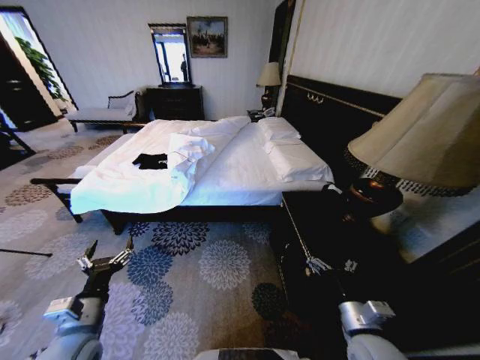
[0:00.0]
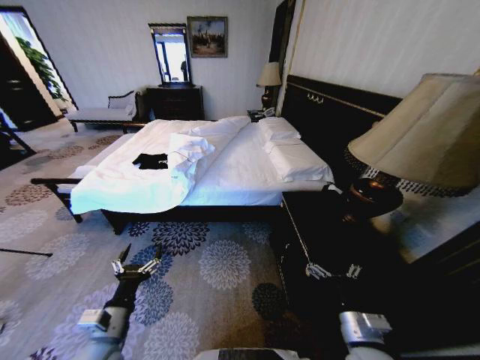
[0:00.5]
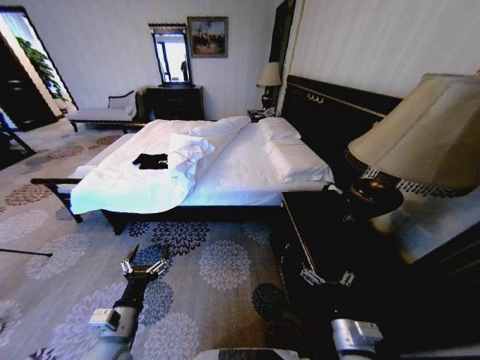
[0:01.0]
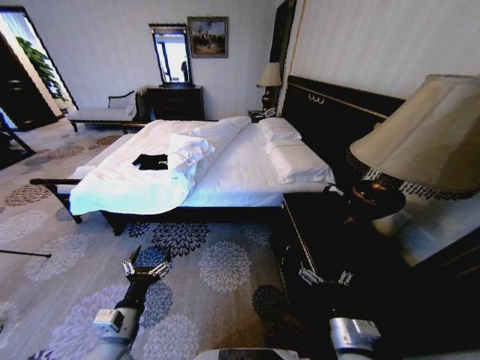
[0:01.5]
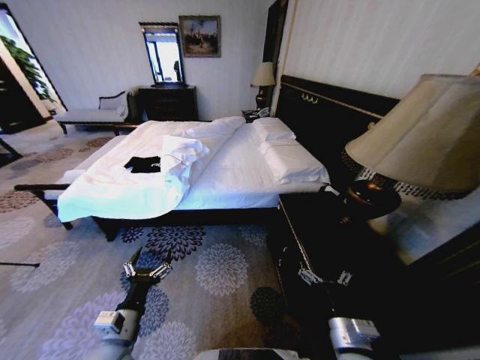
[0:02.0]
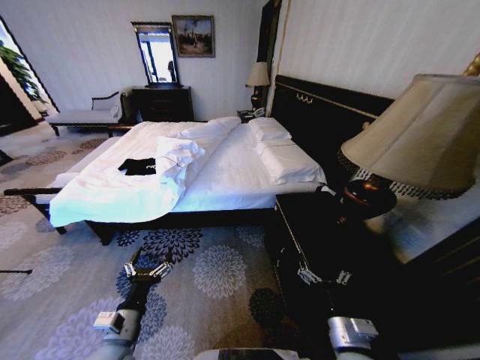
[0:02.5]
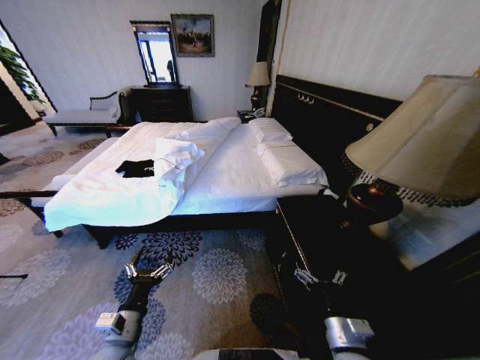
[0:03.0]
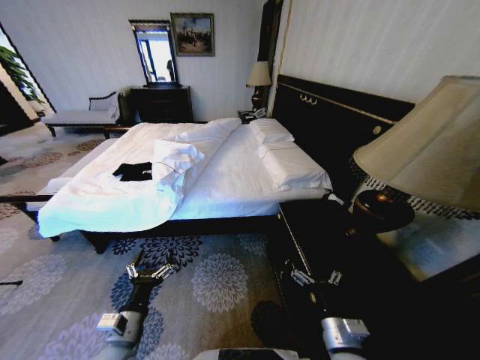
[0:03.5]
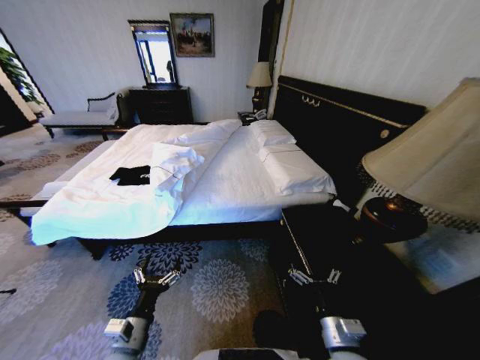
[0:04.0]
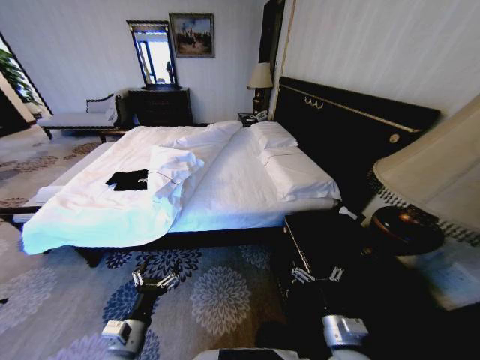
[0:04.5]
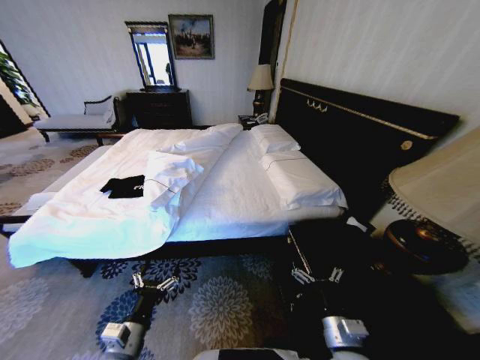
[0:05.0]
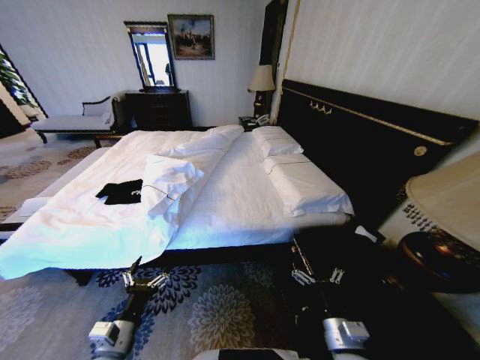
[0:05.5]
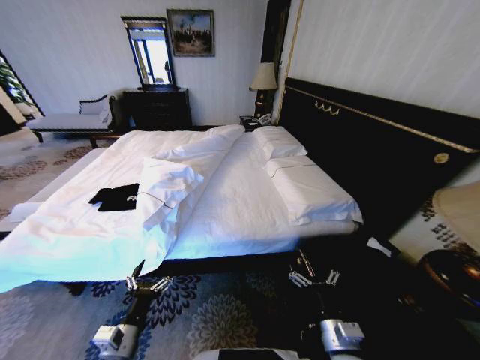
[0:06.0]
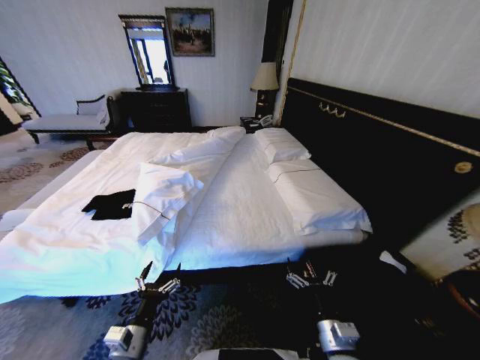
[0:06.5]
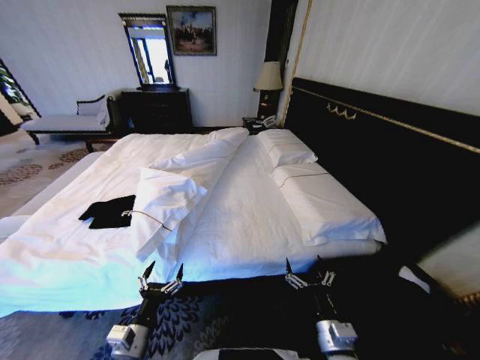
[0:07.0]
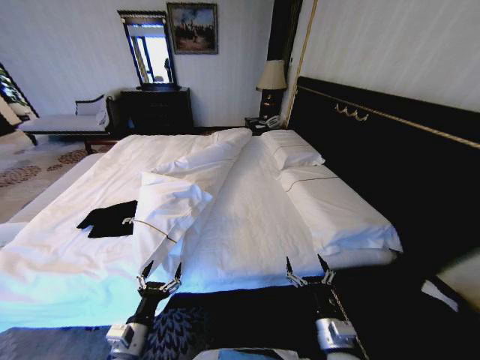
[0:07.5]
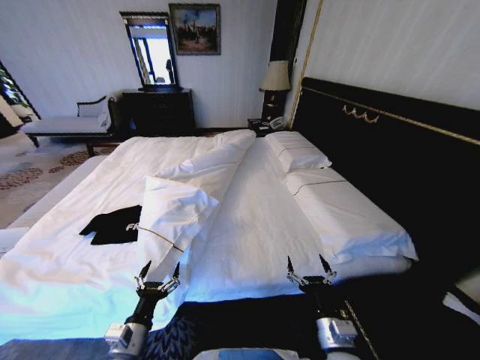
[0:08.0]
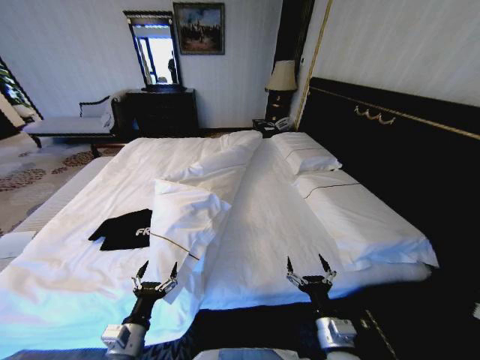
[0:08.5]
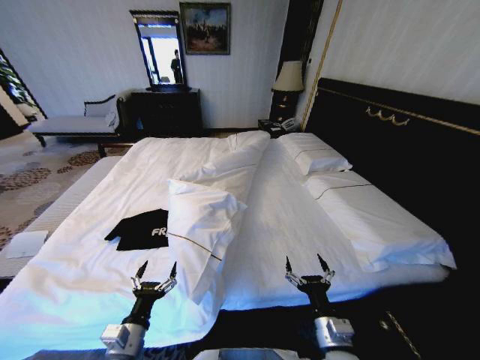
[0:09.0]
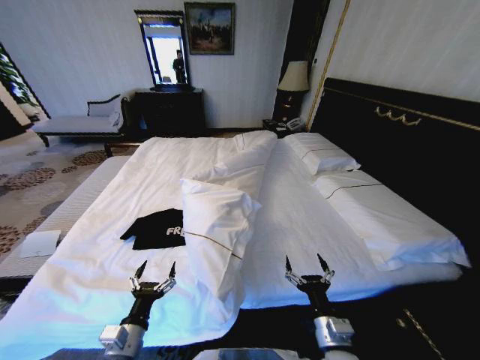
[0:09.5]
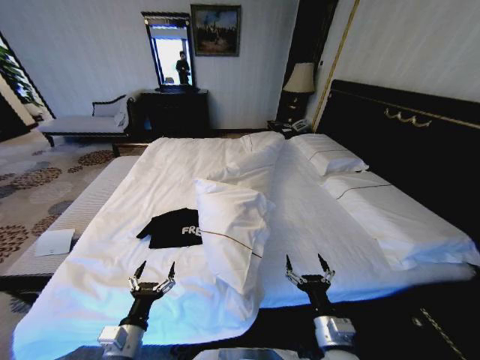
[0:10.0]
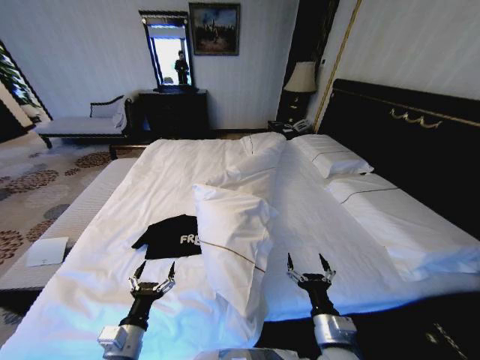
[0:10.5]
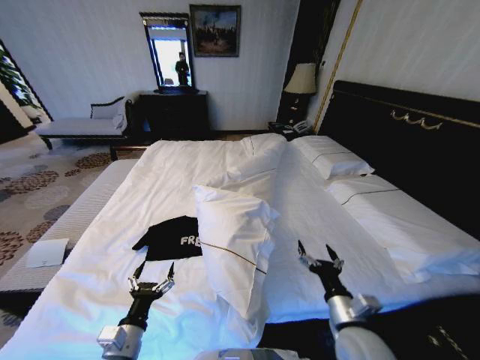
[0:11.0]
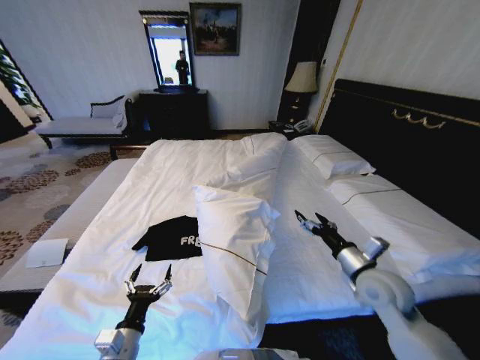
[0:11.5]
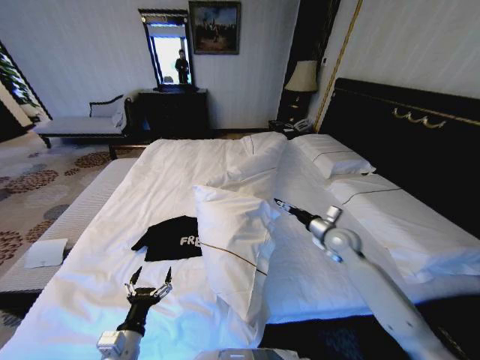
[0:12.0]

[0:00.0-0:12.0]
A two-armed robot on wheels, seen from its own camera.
Task of the whole recording: Fold the clothes on the bed.
0:10.0 to 0:12.0: The right gripper goes about 30 cm forward and to the right.

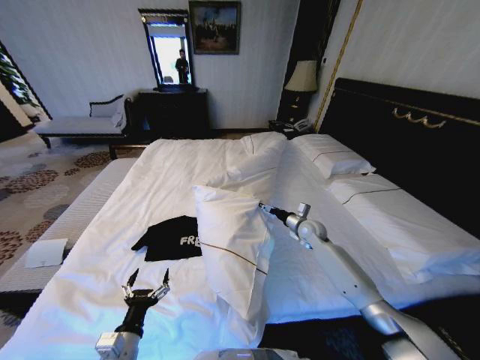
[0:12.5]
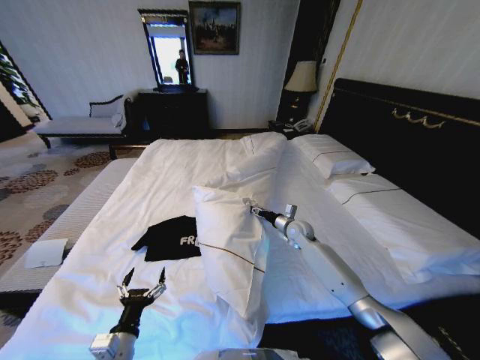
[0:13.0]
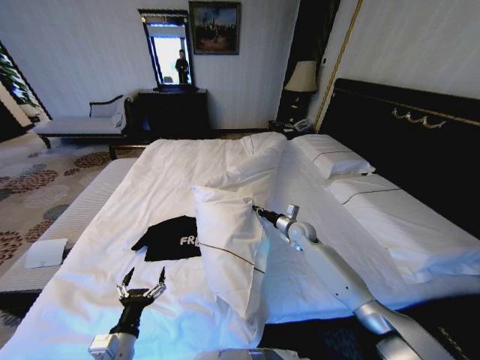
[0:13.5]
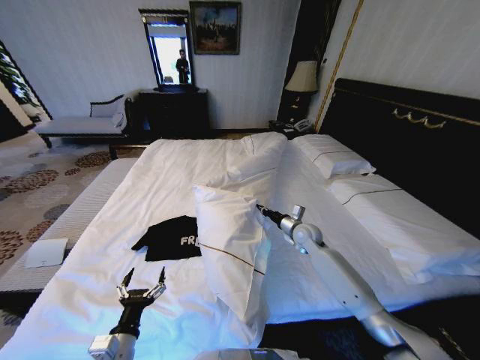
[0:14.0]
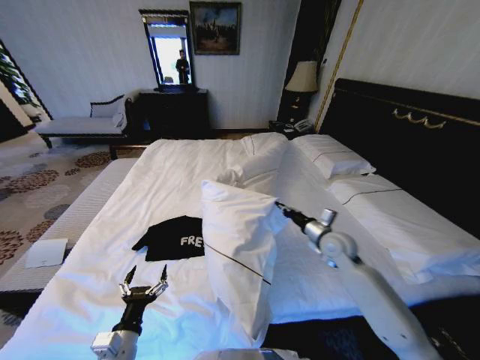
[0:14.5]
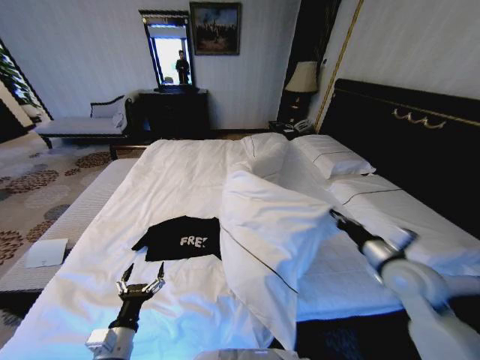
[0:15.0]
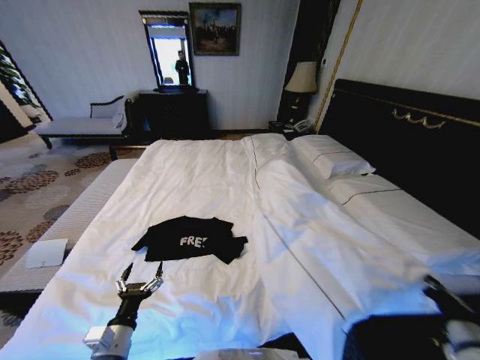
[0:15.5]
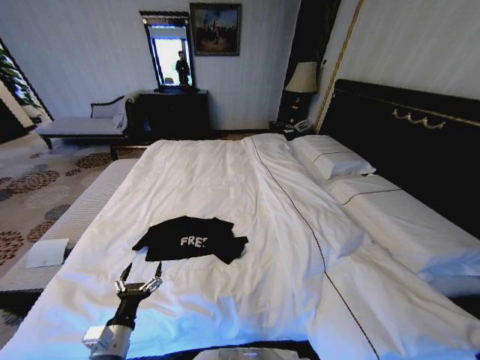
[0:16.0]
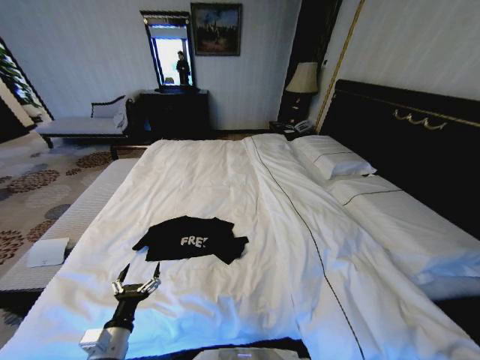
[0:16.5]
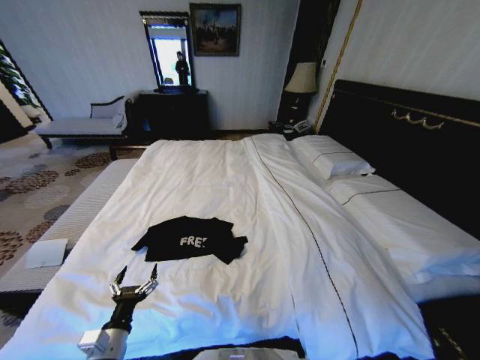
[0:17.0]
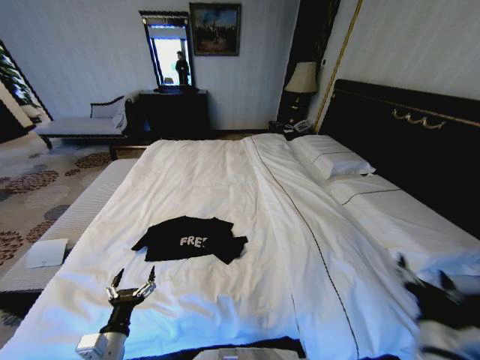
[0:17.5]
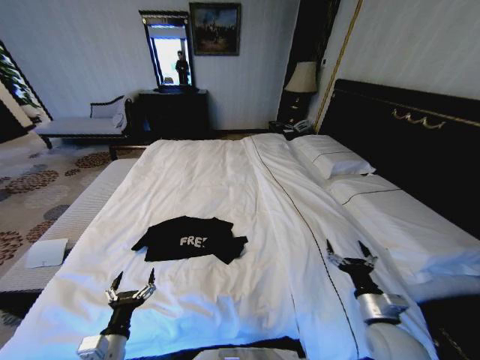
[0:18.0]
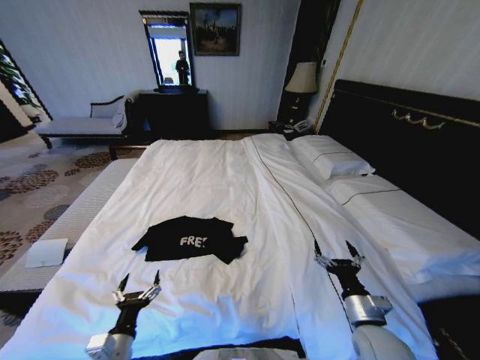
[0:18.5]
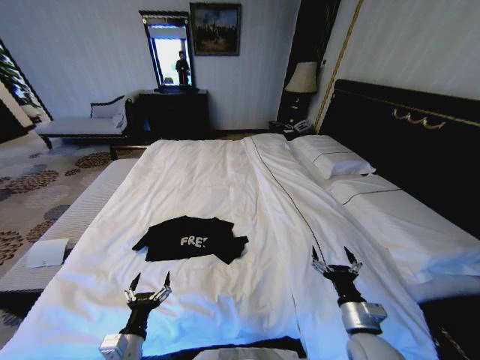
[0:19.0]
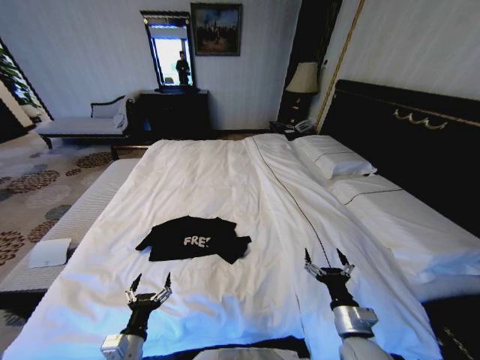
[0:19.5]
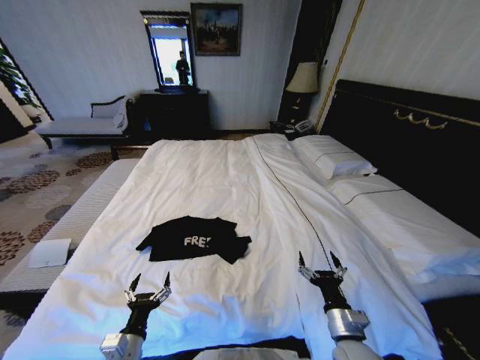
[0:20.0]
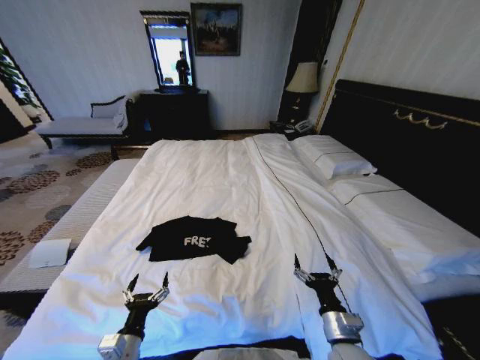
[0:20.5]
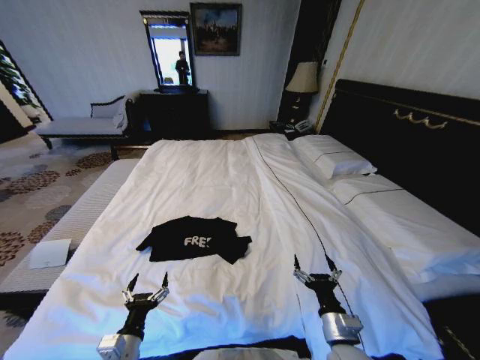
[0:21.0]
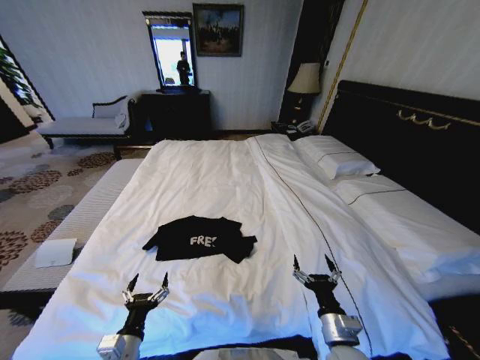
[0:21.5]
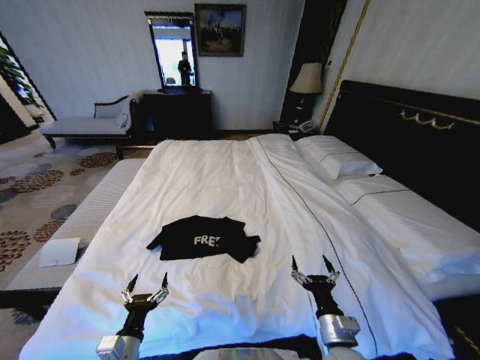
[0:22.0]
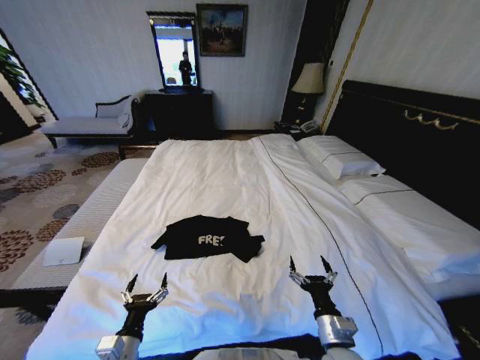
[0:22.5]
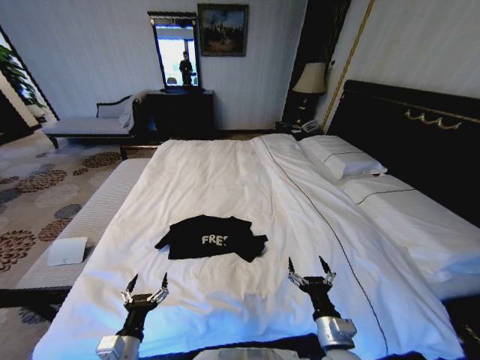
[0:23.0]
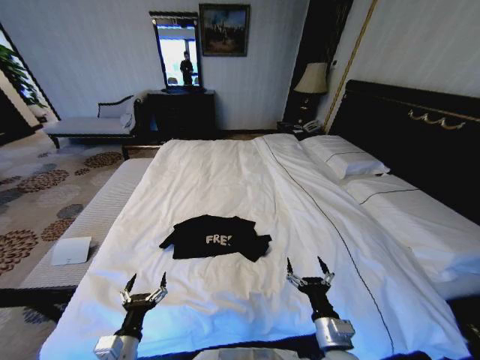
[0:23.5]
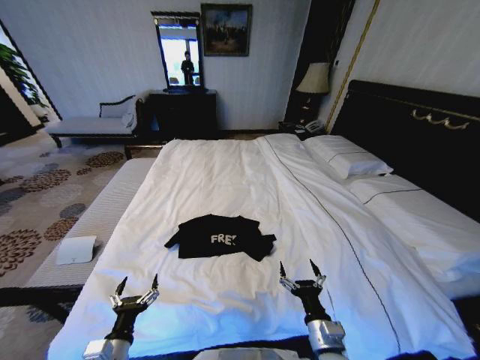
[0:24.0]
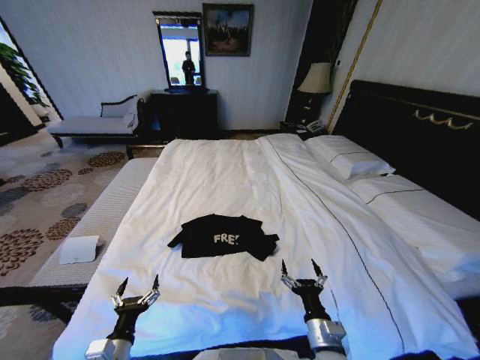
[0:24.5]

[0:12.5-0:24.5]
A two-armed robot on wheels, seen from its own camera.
Task of the whole recording: Fold the clothes on the bed.
0:12.5 to 0:14.5: The right gripper goes approximately 10 cm backward and upward, and closes up.
0:14.5 to 0:16.5: The right gripper shifts approximately 35 cm backward.
0:16.5 to 0:18.5: The right gripper is displaced forward, to the left and upward by some 20 cm, and opens up.
0:18.5 to 0:20.5: The right gripper travels to the left by roughly 5 cm.

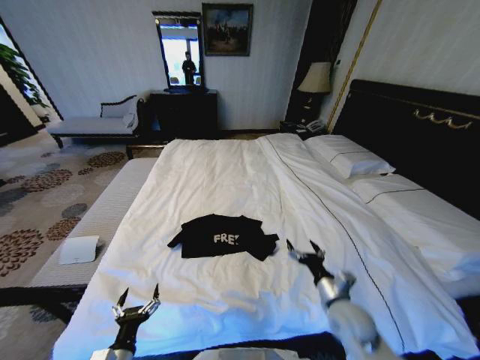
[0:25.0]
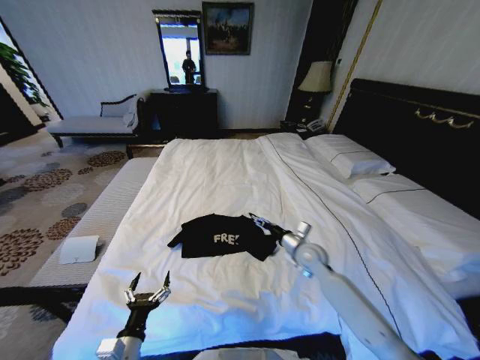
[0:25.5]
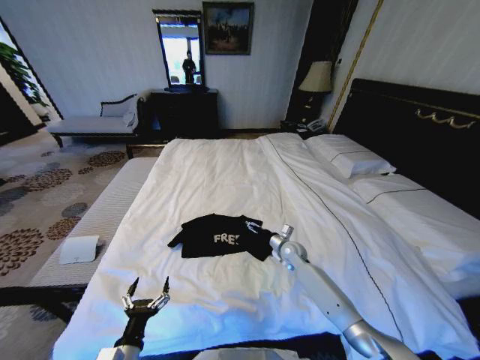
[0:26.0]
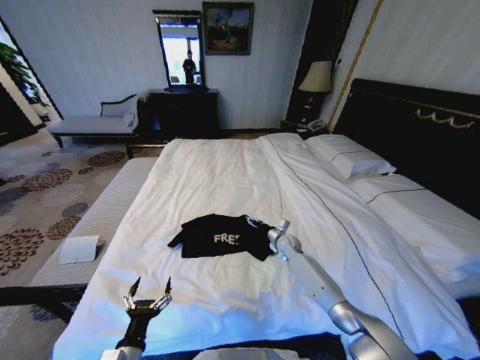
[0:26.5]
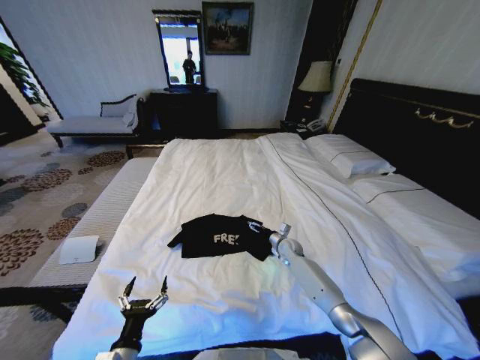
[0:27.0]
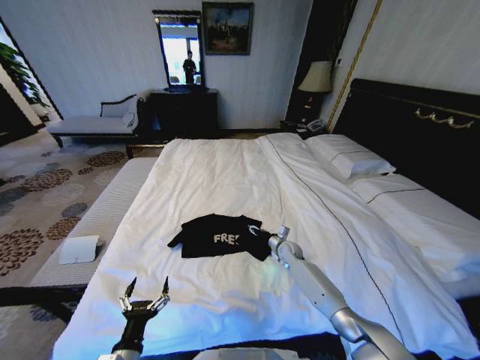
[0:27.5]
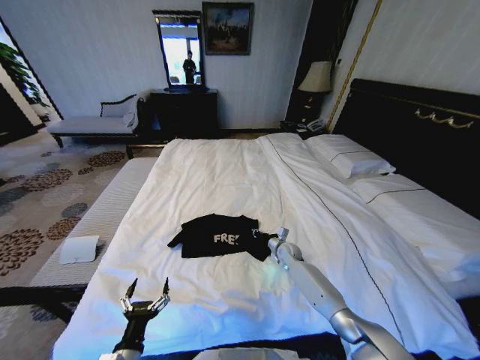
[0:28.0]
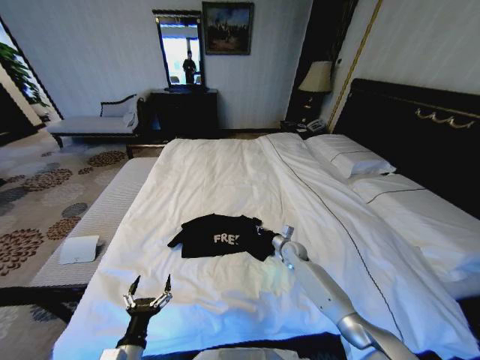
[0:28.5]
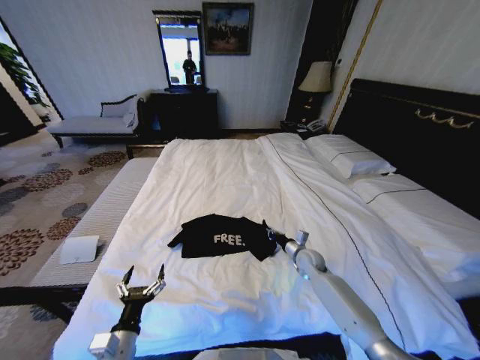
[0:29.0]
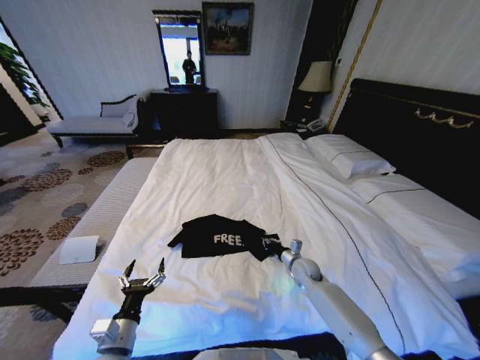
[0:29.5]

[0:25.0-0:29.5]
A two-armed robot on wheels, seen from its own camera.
Task of the whole recording: Fold the clothes on the bed.
0:25.0 to 0:27.0: The right gripper travels forward by about 30 cm.
0:27.0 to 0:29.5: The left gripper travels forward by some 5 cm. The right gripper is displaced backward by roughly 10 cm, and closes up.
